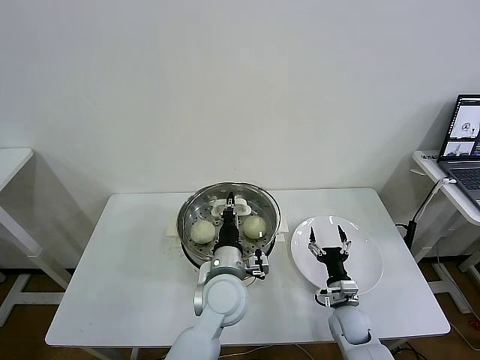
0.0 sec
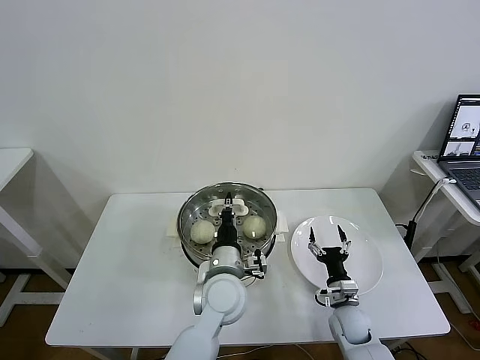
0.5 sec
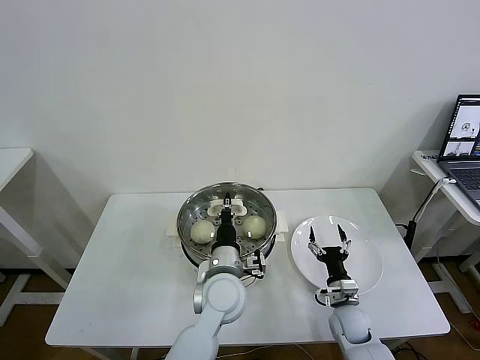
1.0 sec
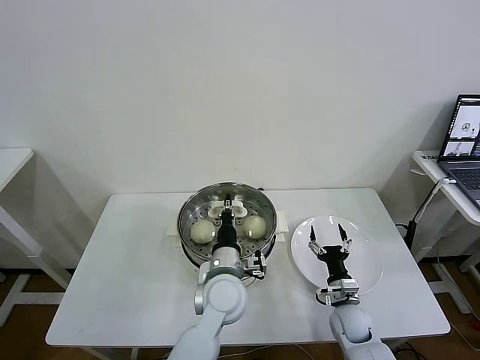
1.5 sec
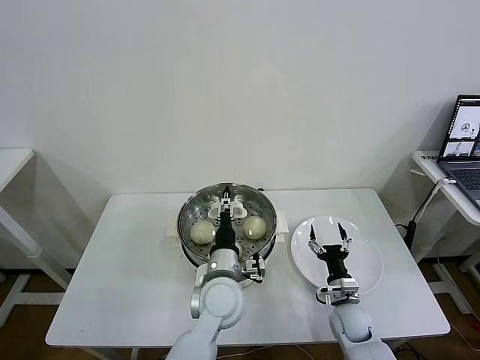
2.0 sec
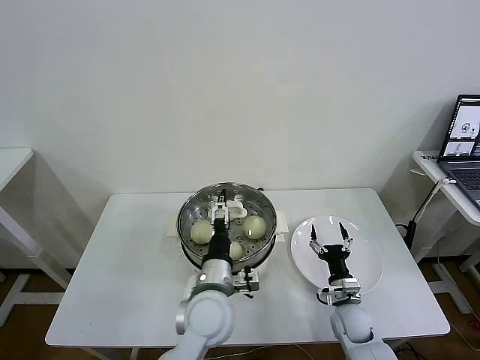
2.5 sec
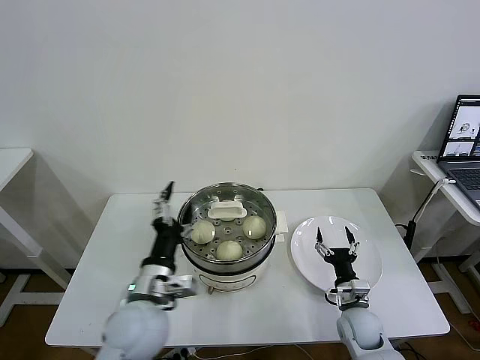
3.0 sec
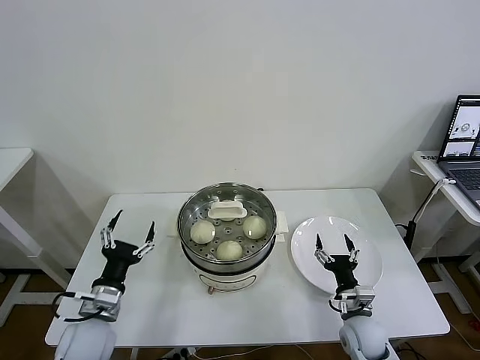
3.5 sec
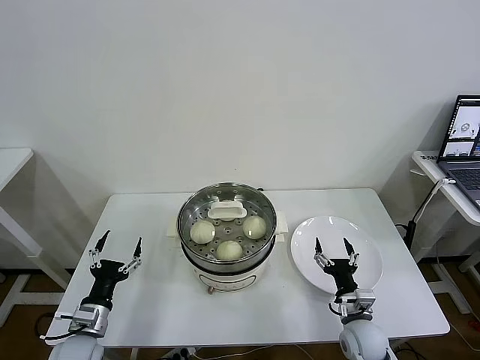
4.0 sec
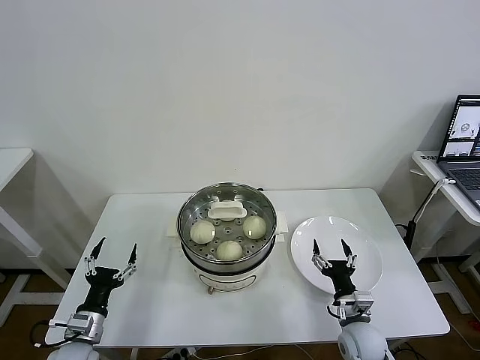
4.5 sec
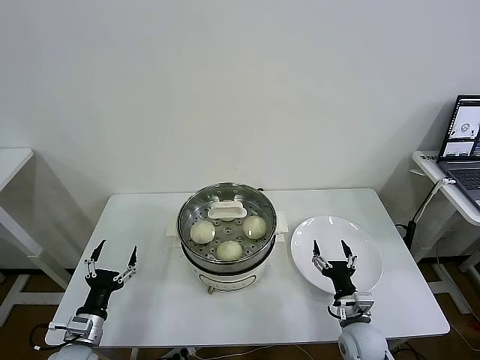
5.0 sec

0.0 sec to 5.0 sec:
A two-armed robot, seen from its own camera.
Task of the whole recording: take steamed baozi put them in steamer then cover it.
0.0 sec to 2.5 sec: The left gripper opens its fingers.
2.5 sec to 5.0 sec: The left gripper shifts about 35 cm to the left and downward; the right gripper travels backward by some 5 cm.

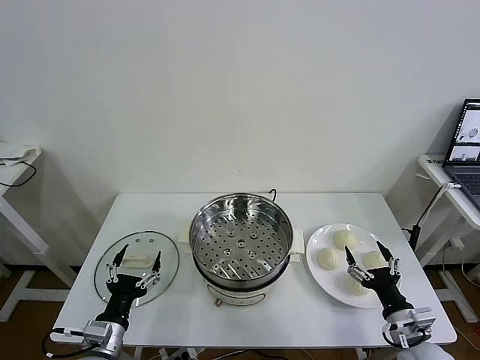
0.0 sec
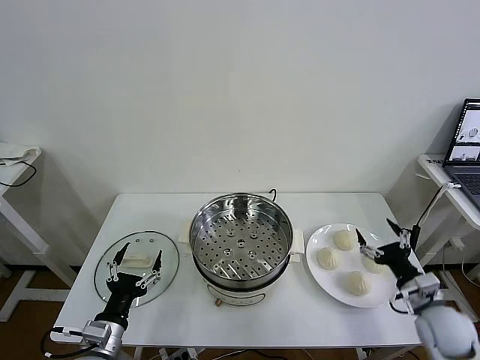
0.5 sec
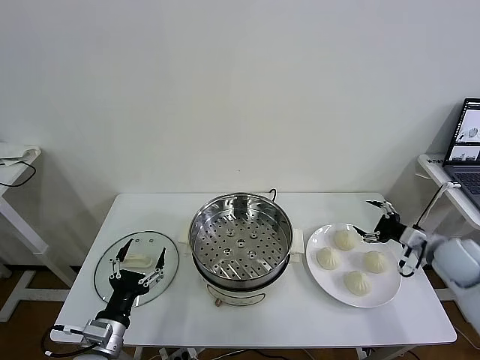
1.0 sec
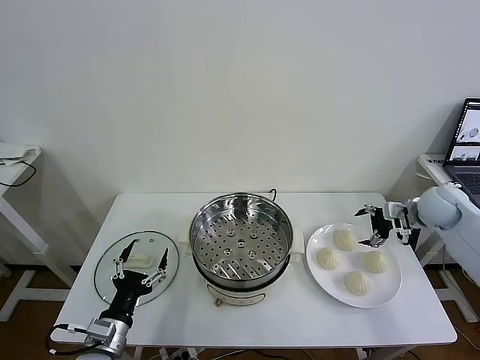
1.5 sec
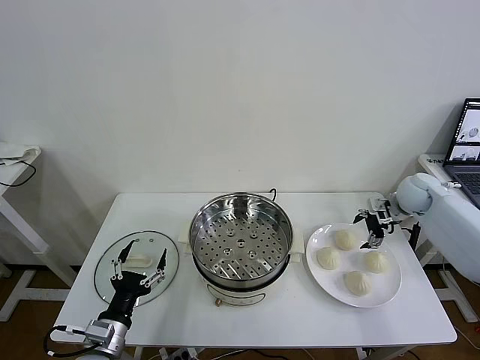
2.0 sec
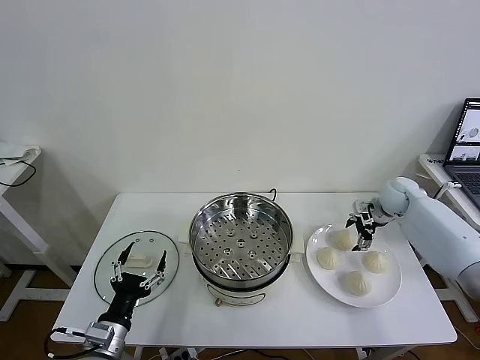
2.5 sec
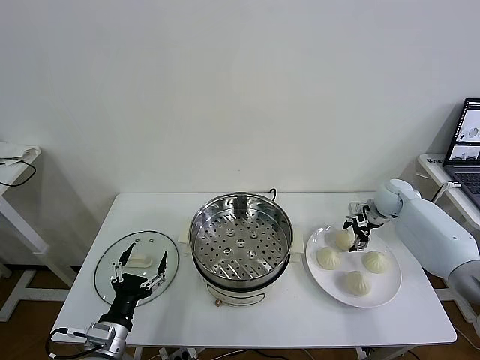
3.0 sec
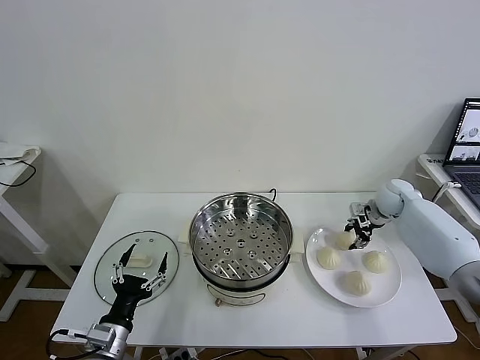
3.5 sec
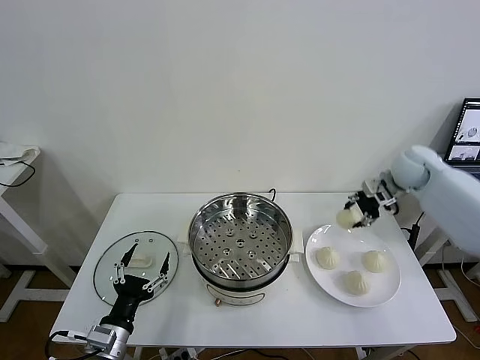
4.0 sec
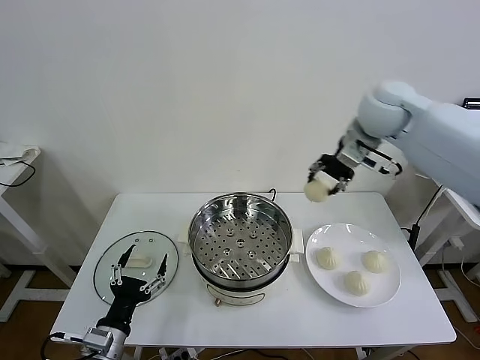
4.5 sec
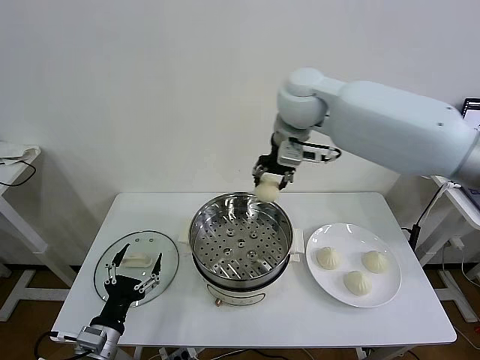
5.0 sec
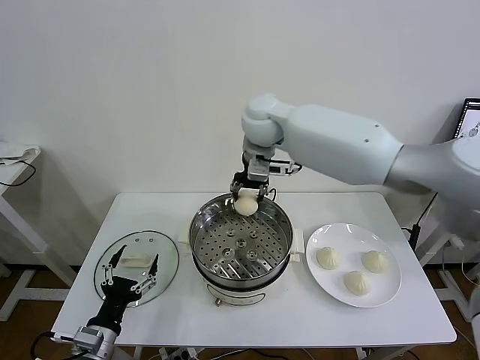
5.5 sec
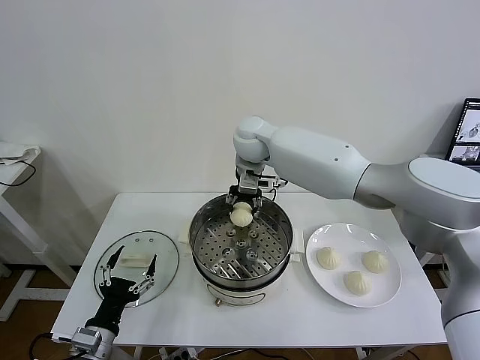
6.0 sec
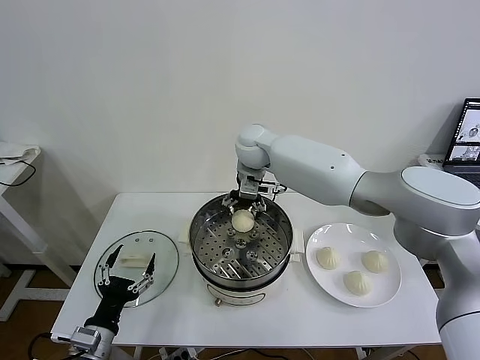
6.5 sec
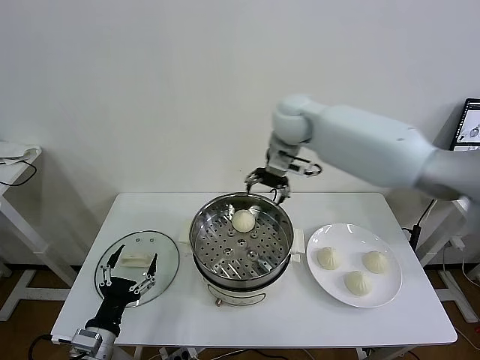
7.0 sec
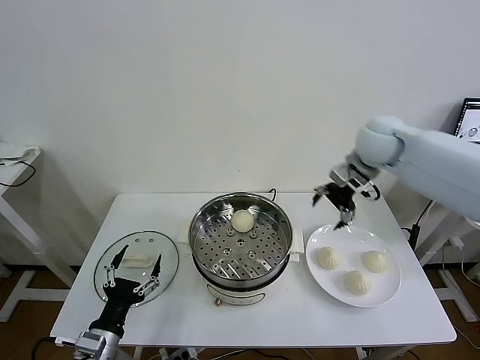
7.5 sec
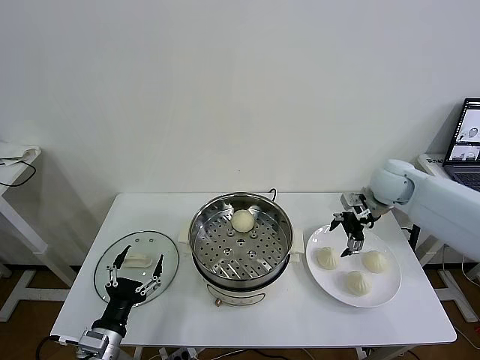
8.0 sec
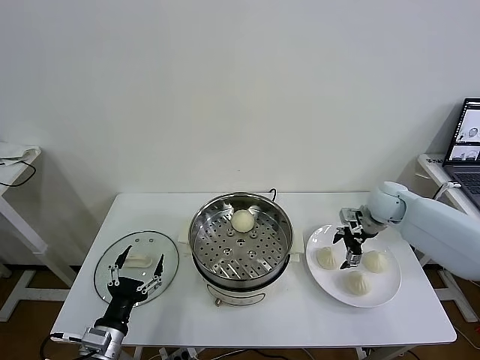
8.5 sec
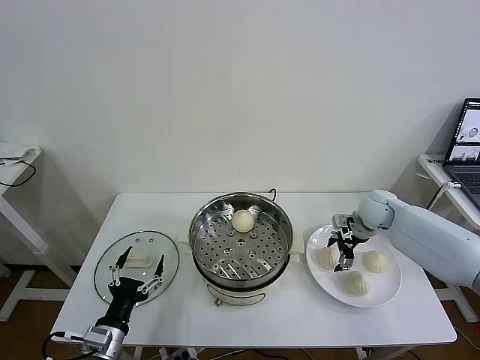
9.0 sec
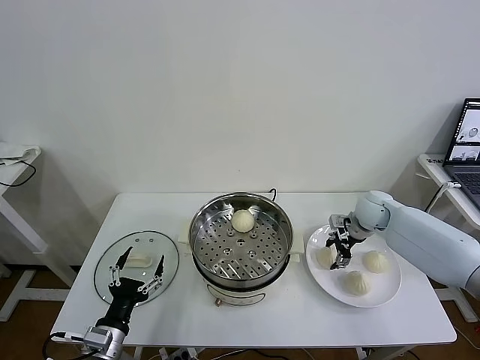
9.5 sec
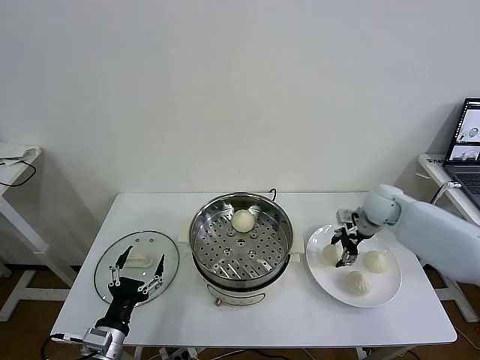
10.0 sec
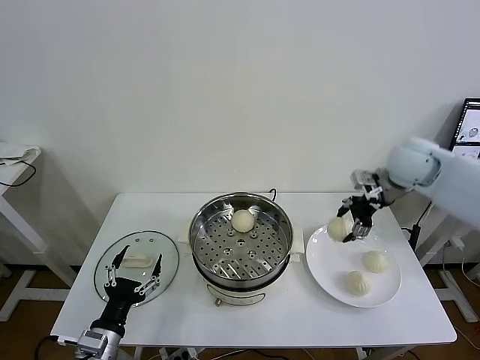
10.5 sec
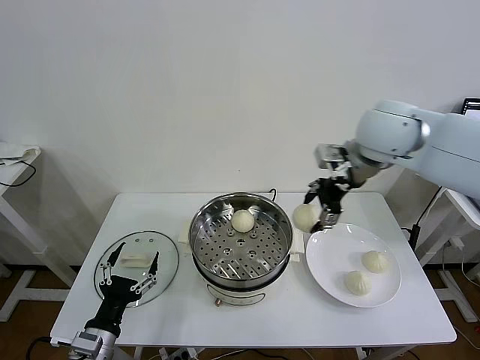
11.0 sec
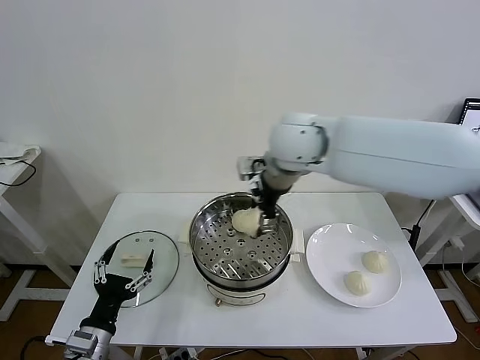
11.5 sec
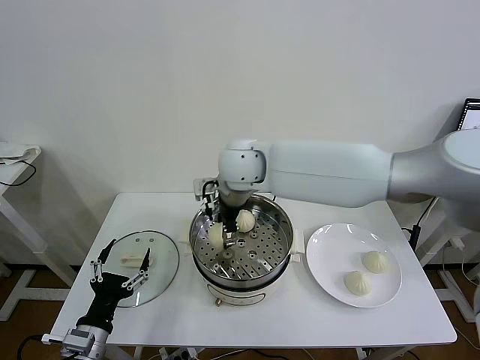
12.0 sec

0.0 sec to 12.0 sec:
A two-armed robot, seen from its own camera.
Task of the whole recording: take steamed baozi put them in steamer then cover it.
Step, 0.0 sec to 3.0 sec: Grasp the baozi in the plate with right gripper.
Step, 3.5 sec to 6.0 sec: Place the baozi on the steamer with right gripper.
Step, 7.0 sec to 9.5 sec: Grasp the baozi in the plate with right gripper.
2.0 sec to 4.0 sec: The right gripper heads upward and to the left, covering roughly 15 cm, and closes.
4.0 sec to 6.0 sec: The right gripper goes about 35 cm to the left.
6.0 sec to 8.0 sec: The right gripper goes roughly 30 cm to the right, and opens its fingers.
8.0 sec to 10.0 sec: The right gripper closes up.
10.0 sec to 12.0 sec: The right gripper is displaced to the left by some 35 cm.

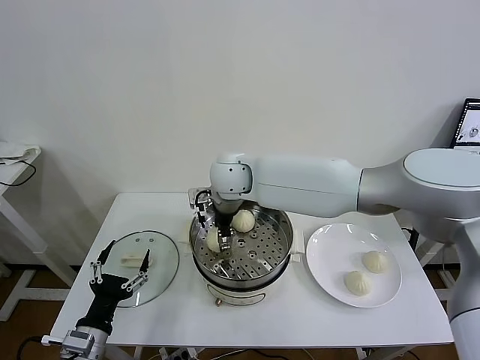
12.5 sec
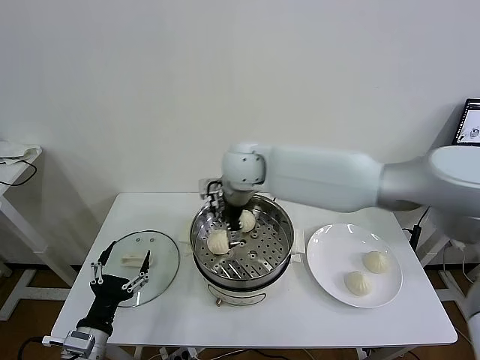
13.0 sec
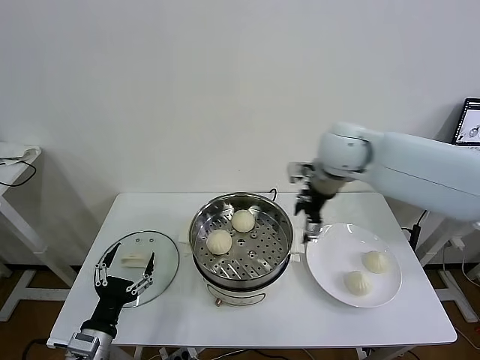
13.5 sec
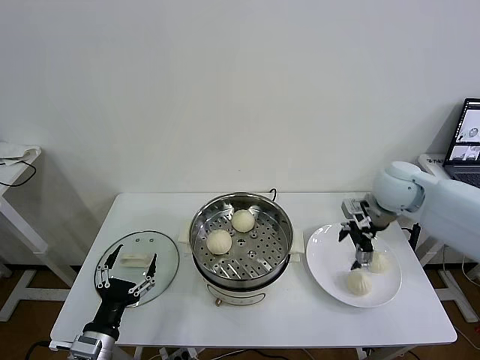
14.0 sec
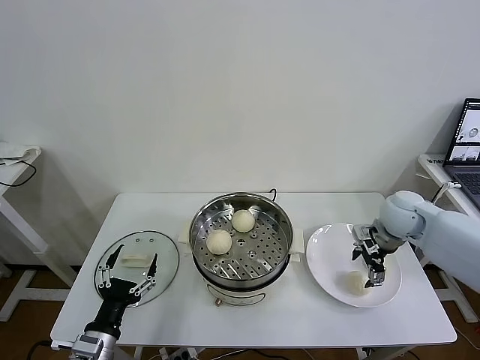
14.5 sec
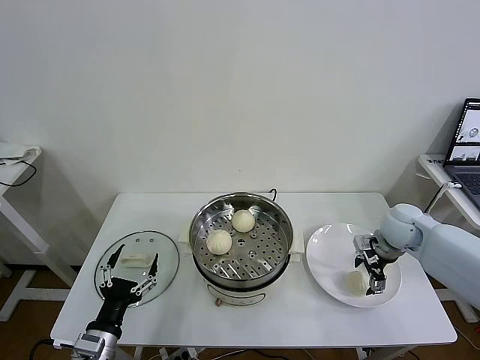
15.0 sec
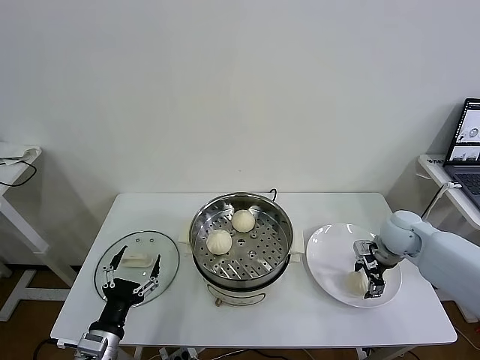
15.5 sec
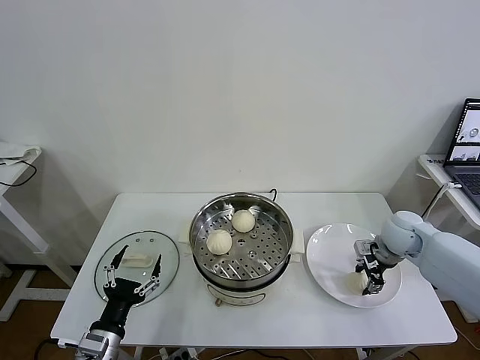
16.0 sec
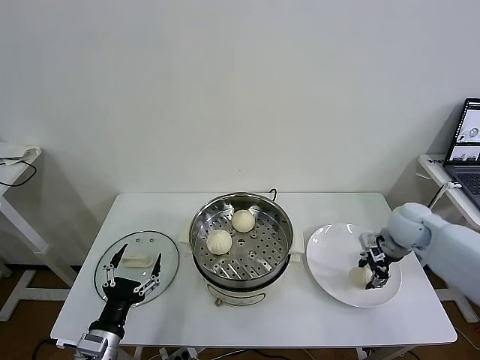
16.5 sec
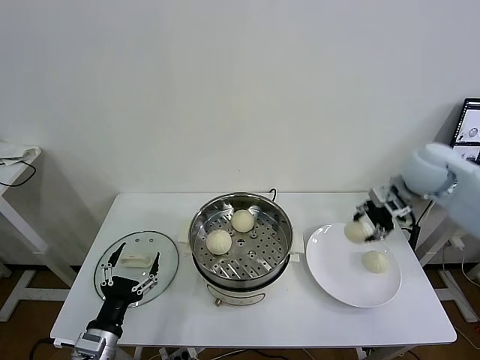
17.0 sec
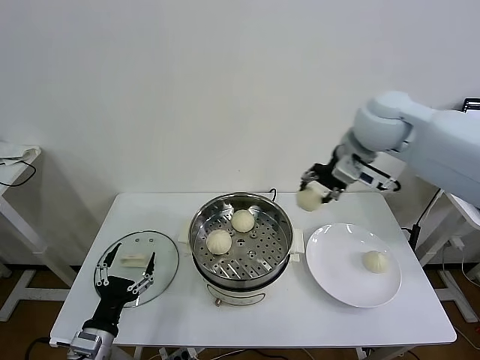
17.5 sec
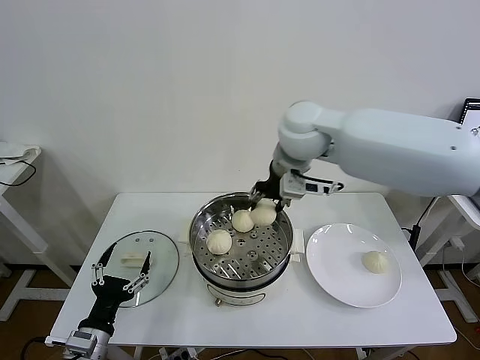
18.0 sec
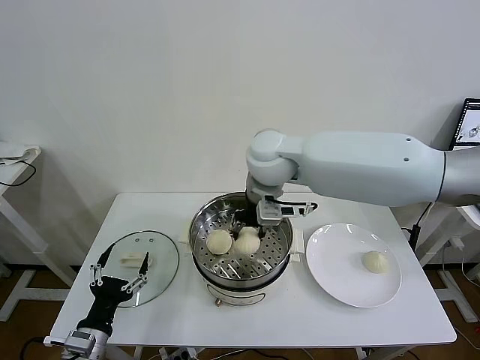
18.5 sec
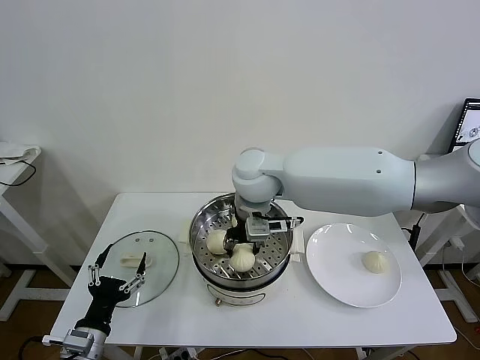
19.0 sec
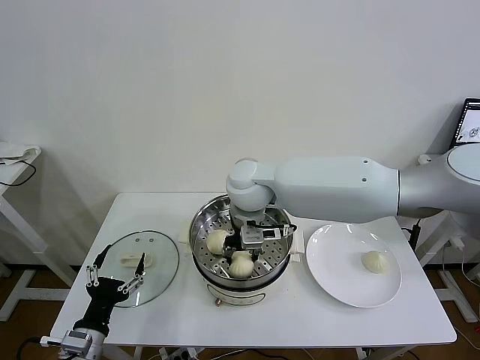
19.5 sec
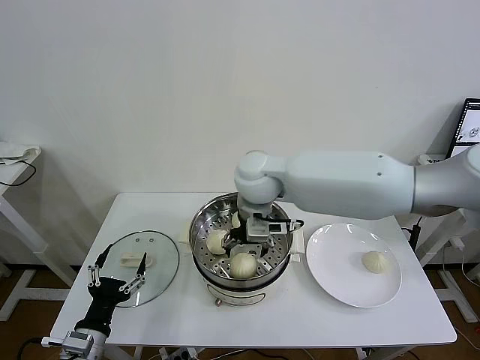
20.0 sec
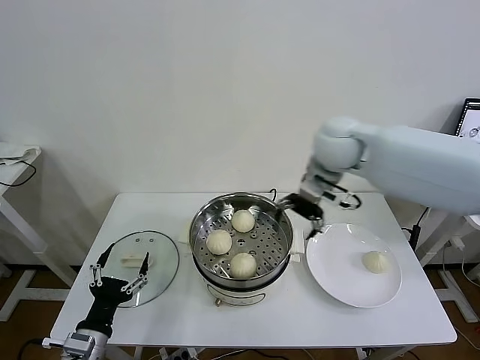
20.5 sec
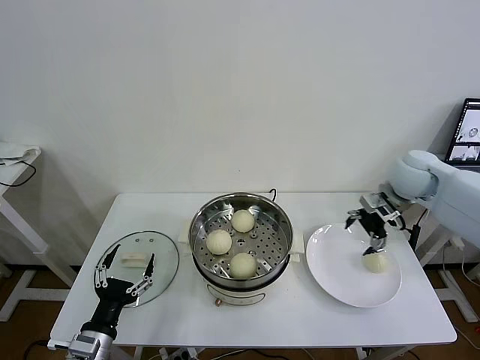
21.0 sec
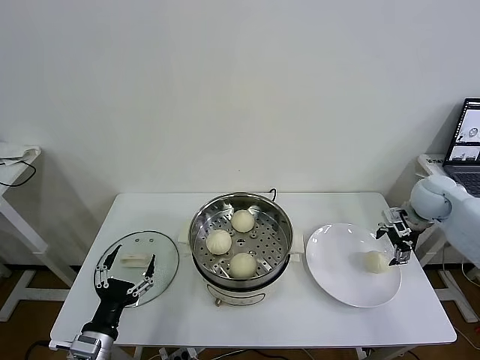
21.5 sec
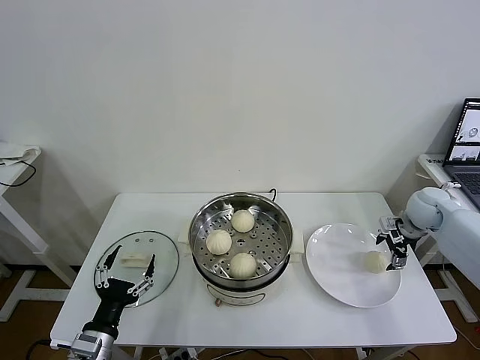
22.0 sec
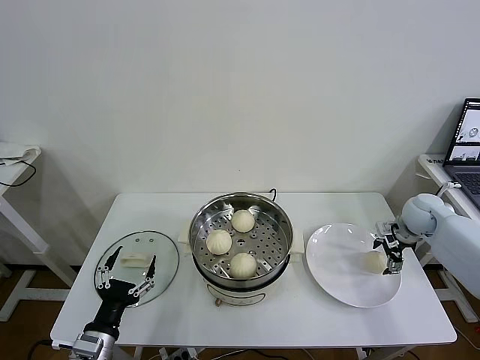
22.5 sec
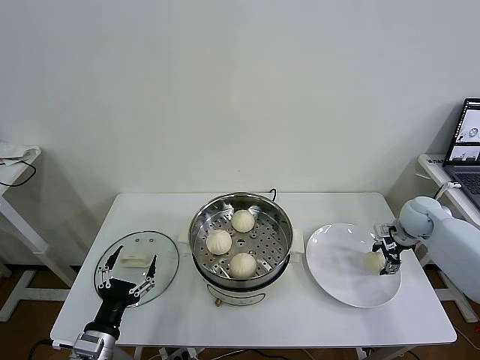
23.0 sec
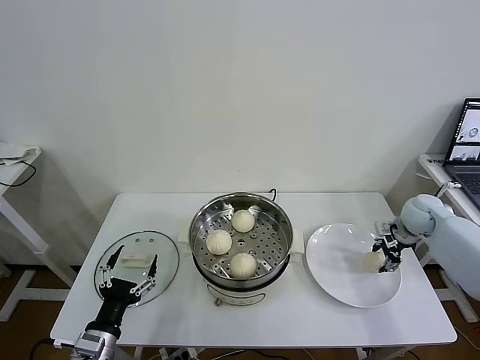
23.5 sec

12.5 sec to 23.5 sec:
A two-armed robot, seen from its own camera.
Task of the whole recording: take steamed baozi put them in steamer then cover it.
Step, 13.0 sec to 16.0 sec: Grasp the baozi in the plate with right gripper.
Step, 16.5 sec to 19.5 sec: Place the baozi on the steamer with right gripper.
Step, 20.0 sec to 23.0 sec: Grasp the baozi in the plate with right gripper.
12.5 sec to 14.5 sec: The right gripper shifts roughly 40 cm to the right, and opens up.
14.5 sec to 16.0 sec: The right gripper moves downward, some 5 cm, and closes.
16.0 sec to 18.0 sec: The right gripper shifts some 35 cm to the left and upward.
18.0 sec to 20.0 sec: The right gripper travels downward and to the left by some 10 cm, and opens its fingers.
20.0 sec to 21.5 sec: The right gripper shifts approximately 40 cm to the right.
21.5 sec to 23.5 sec: The right gripper is displaced downward by about 5 cm, and closes its fingers.
